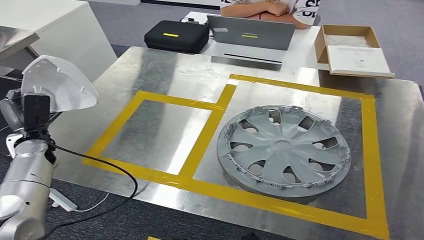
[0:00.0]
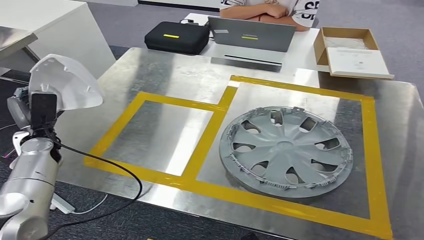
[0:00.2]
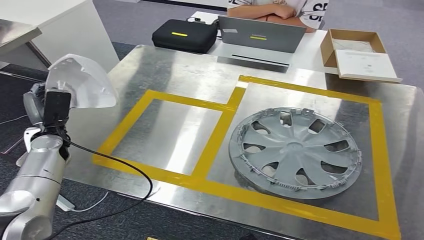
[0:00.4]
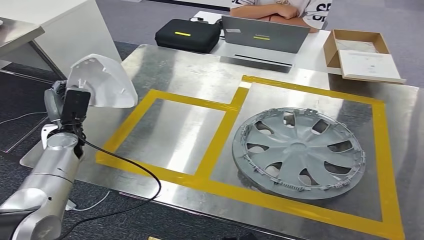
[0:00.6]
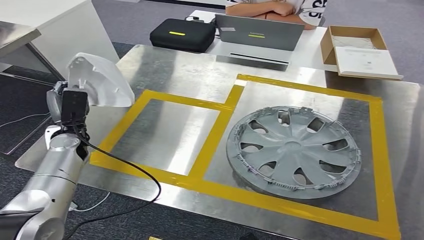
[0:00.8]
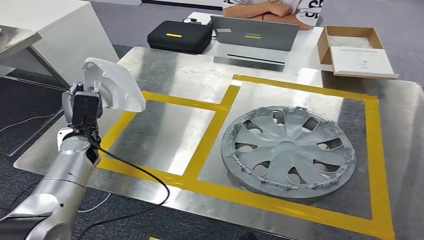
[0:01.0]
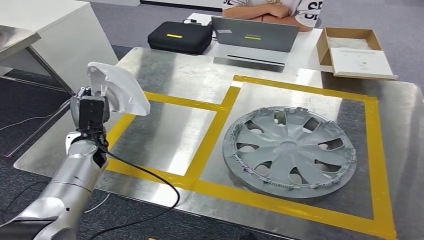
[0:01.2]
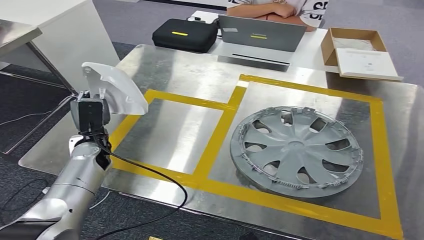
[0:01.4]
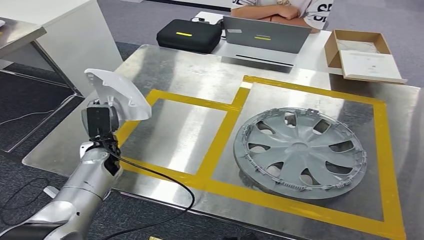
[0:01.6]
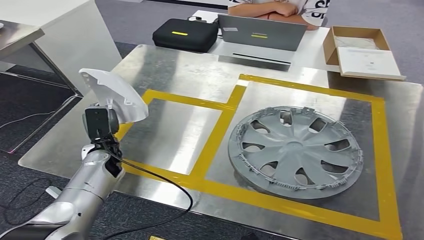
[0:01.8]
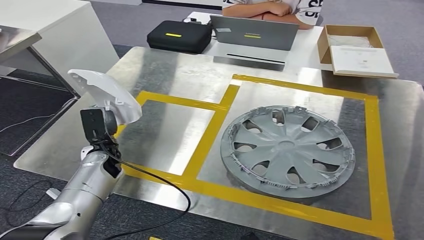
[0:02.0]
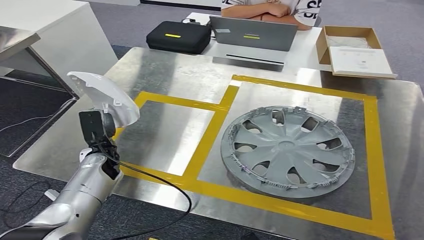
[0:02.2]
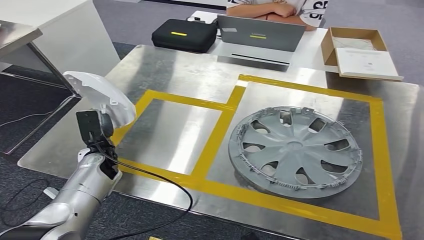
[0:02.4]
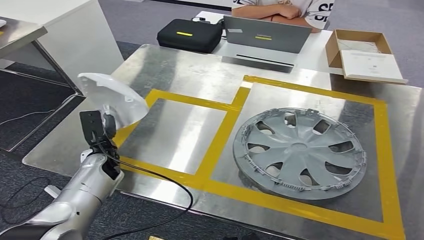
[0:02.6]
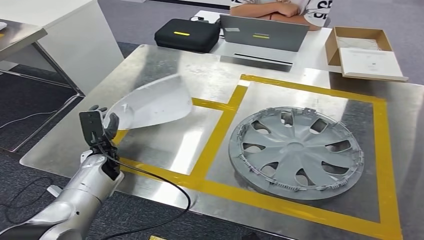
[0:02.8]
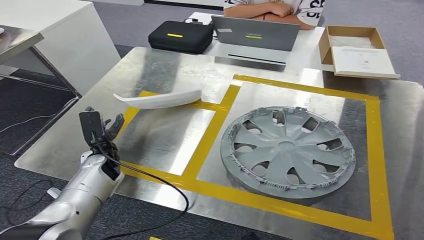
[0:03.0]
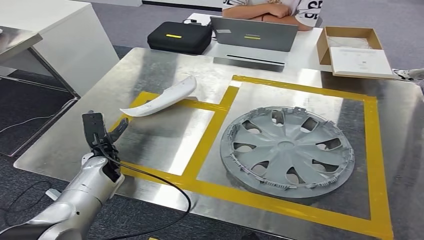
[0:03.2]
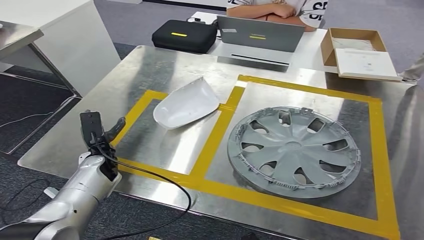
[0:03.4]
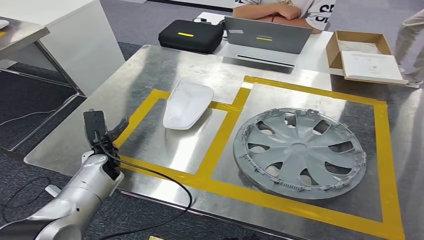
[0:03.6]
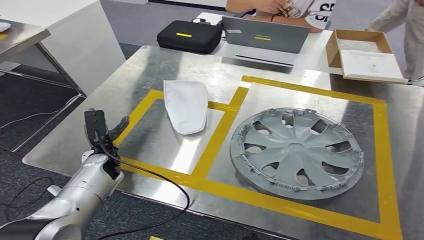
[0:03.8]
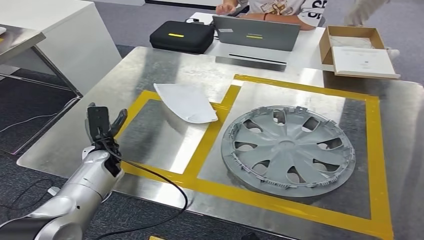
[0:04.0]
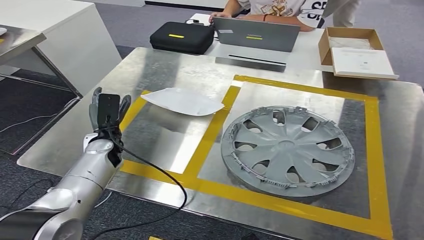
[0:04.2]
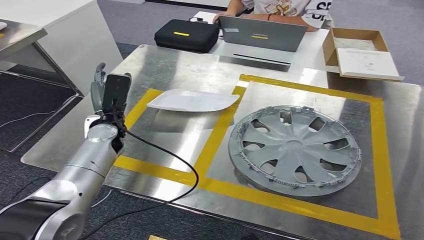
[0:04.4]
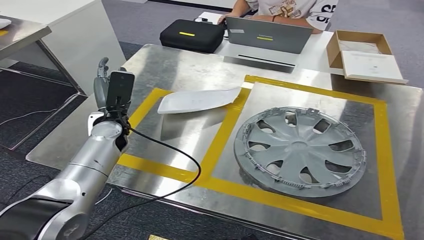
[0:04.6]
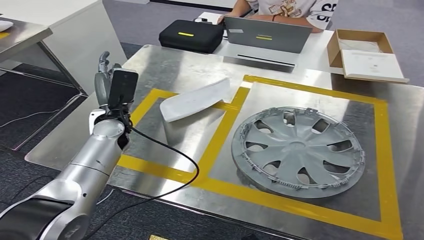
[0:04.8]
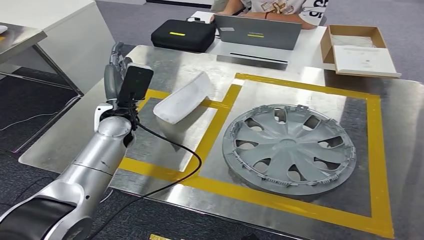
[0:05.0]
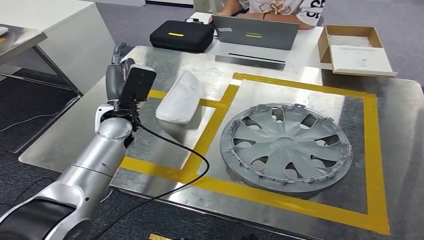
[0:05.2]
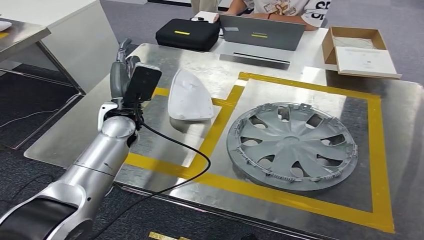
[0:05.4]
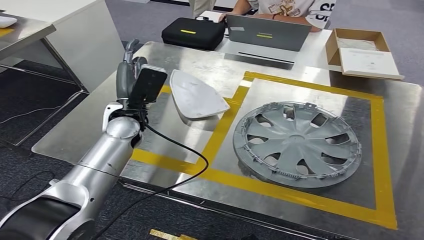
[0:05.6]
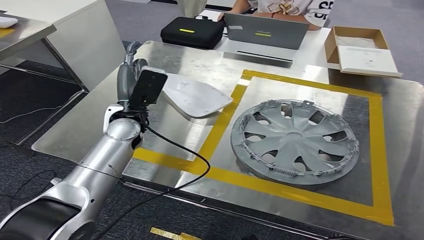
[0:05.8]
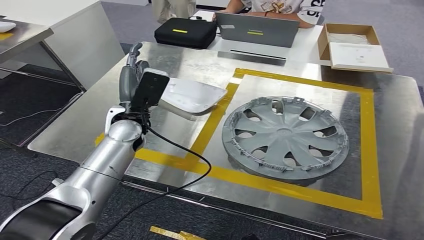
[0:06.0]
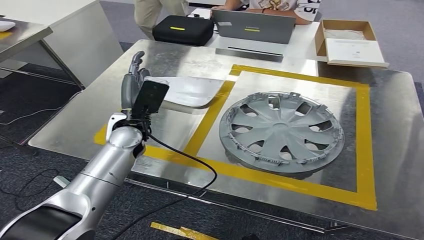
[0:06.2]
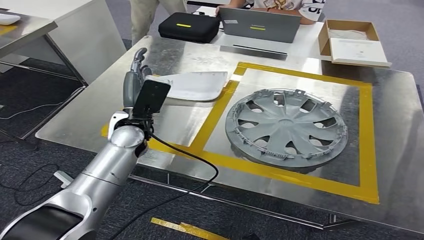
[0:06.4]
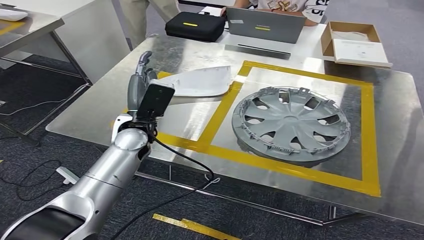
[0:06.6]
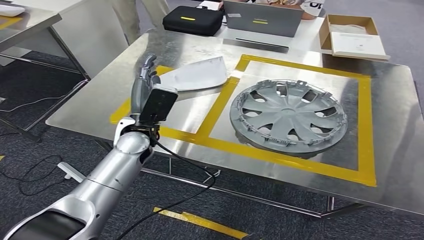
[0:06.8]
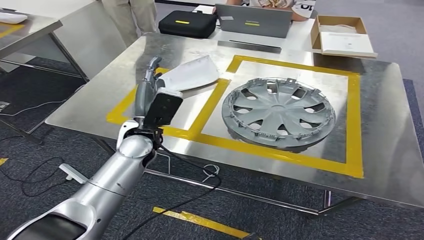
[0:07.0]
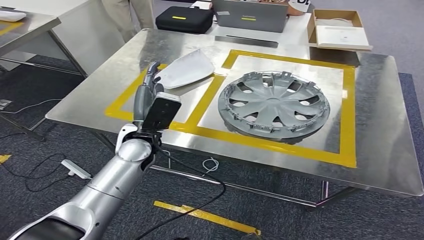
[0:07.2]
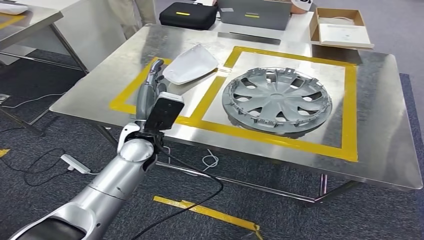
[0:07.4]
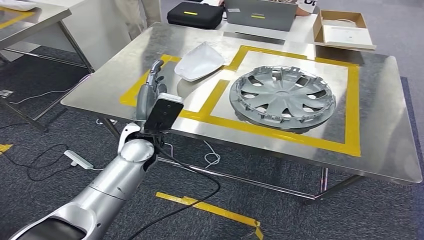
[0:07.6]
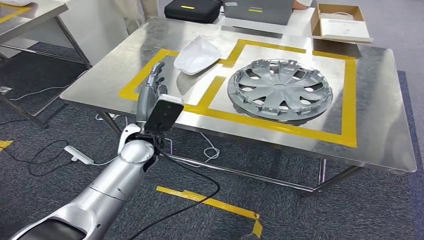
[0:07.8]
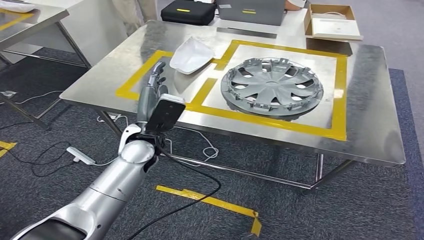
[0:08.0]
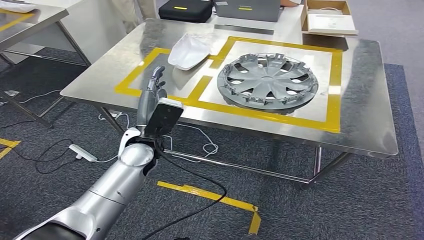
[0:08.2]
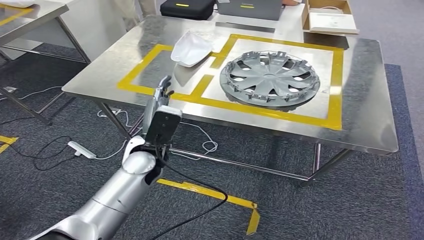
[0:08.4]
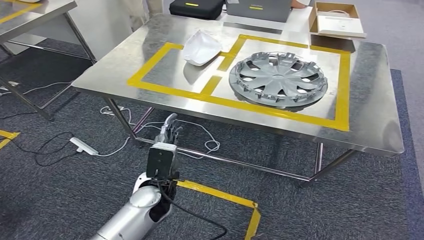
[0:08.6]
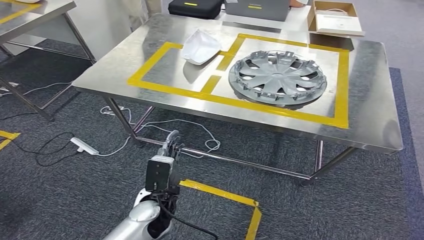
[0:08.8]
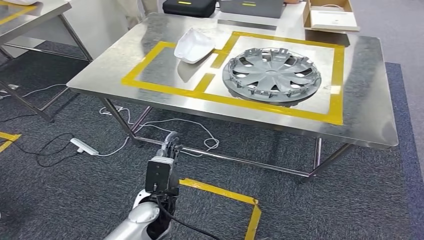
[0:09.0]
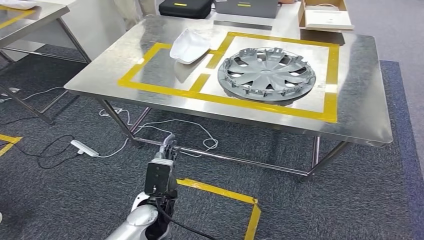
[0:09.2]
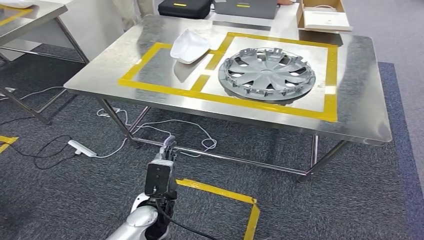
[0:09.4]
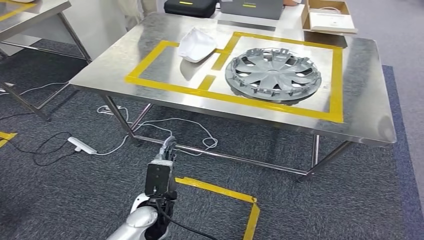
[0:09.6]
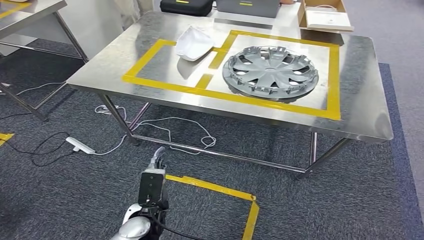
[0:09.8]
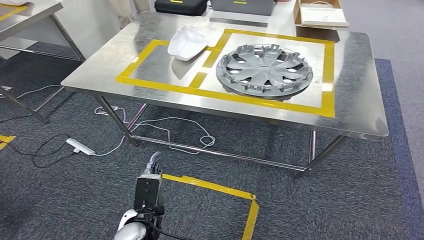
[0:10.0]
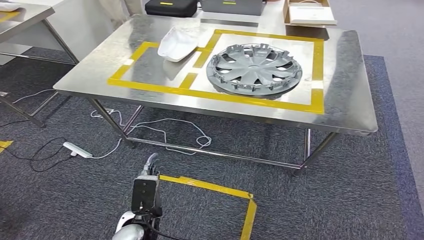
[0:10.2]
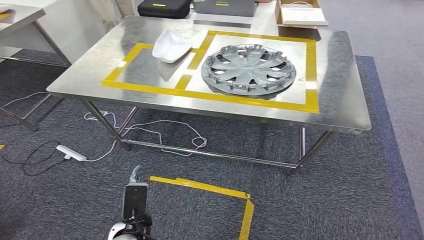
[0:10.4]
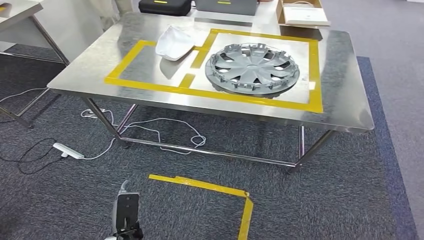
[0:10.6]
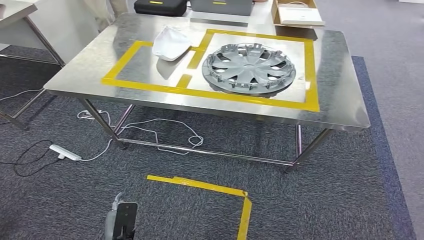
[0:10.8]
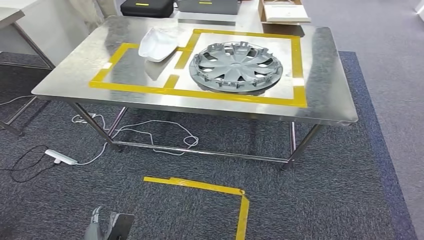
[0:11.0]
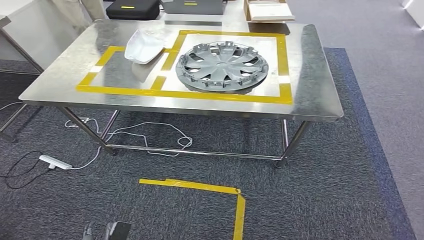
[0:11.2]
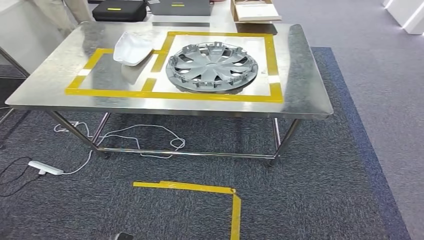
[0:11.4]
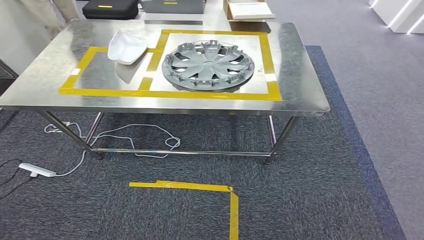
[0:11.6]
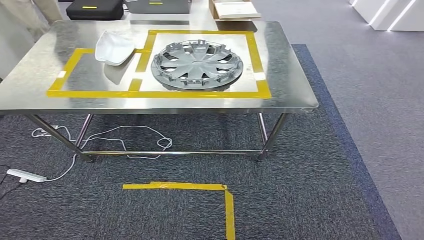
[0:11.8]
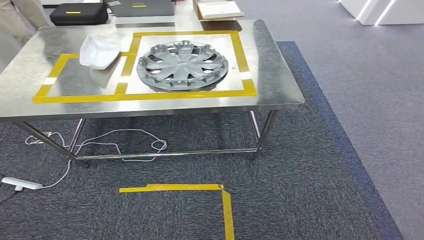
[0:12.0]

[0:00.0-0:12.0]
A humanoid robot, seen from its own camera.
Step, 0:00.0 to 0:05.6: Insert the small parts into the corresponding holes on the workbench.

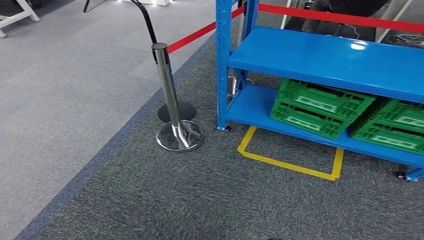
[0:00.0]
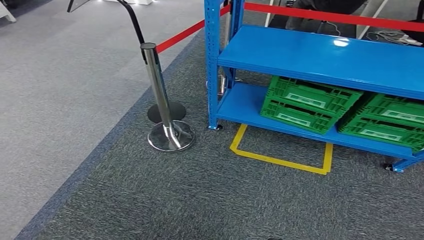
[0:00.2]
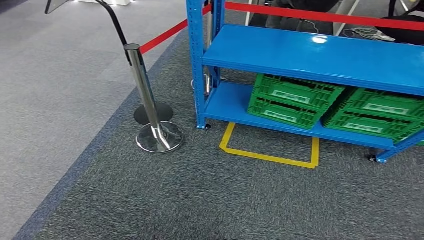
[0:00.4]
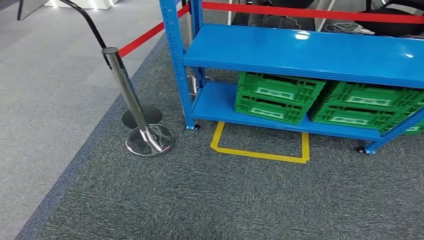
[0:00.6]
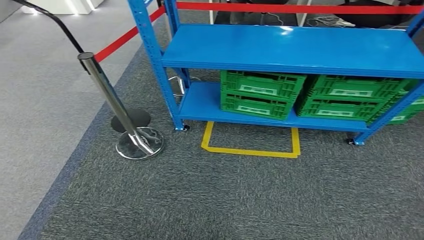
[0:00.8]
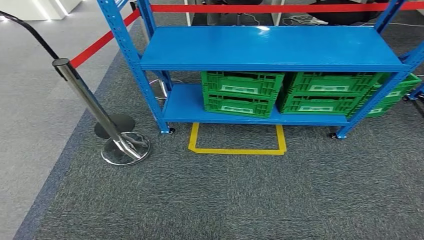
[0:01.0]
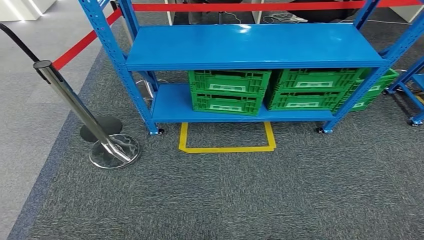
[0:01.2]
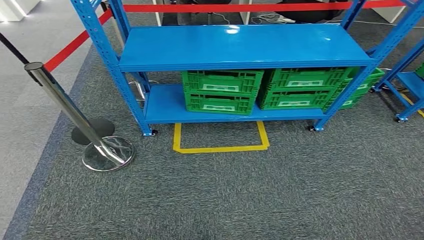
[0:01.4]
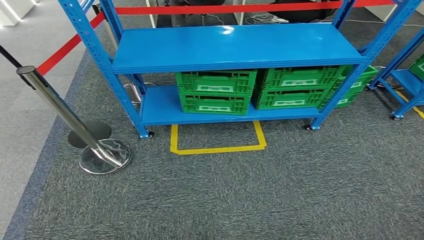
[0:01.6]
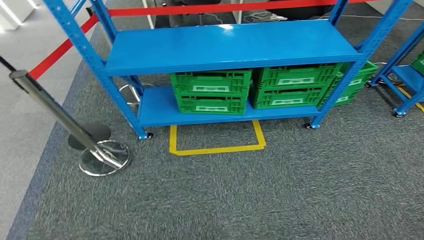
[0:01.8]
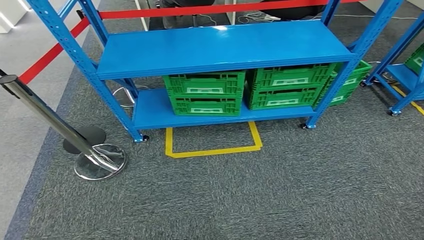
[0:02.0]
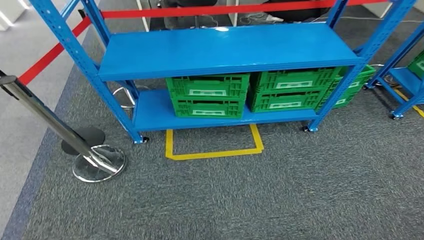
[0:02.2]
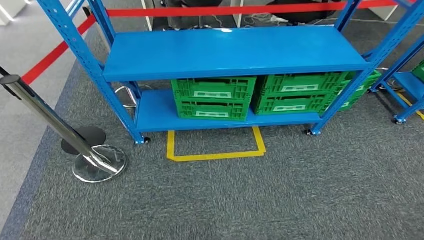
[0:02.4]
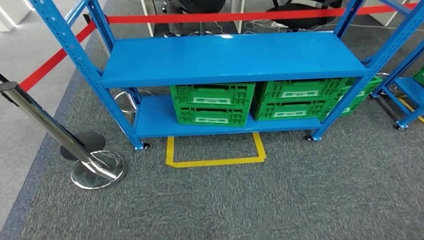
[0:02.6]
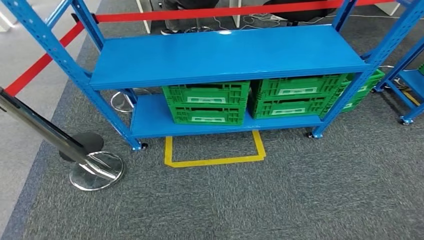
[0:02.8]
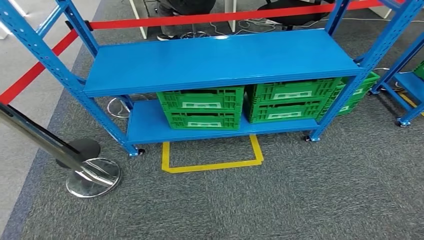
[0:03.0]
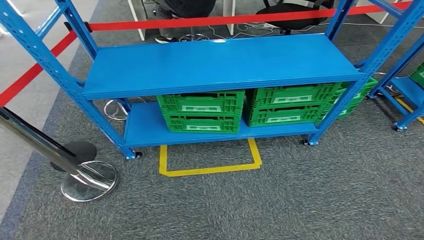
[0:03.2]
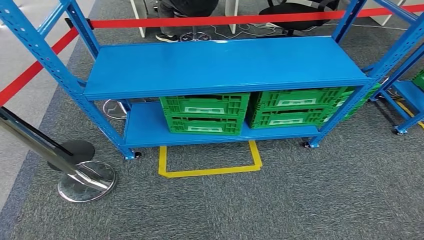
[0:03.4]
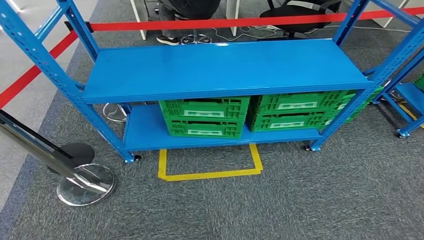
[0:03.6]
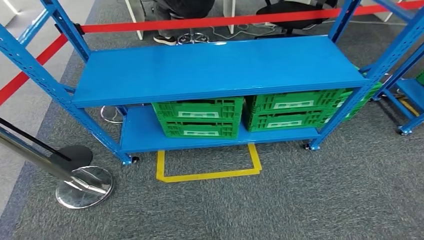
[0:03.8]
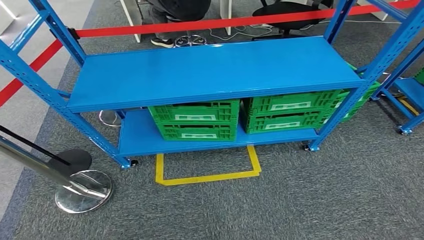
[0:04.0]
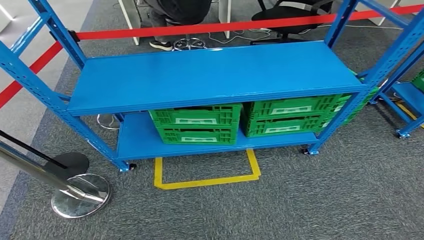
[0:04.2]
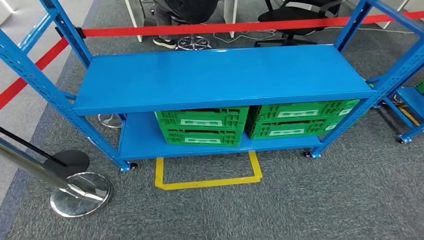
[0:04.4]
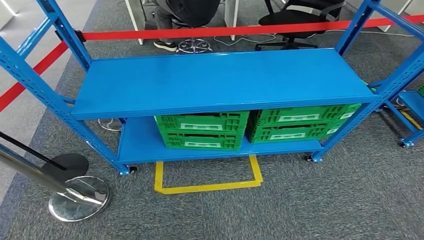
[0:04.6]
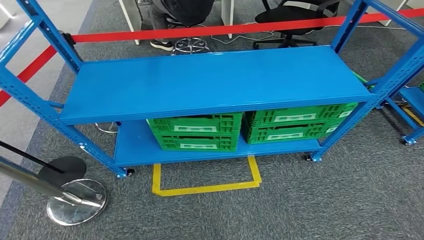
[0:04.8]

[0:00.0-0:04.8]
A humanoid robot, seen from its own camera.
Step, 0:00.0 to 0:04.8: Move to the initial position of the workbench.
